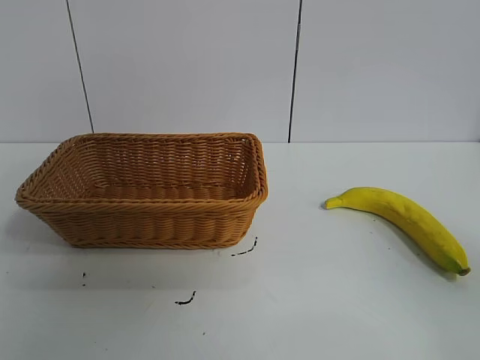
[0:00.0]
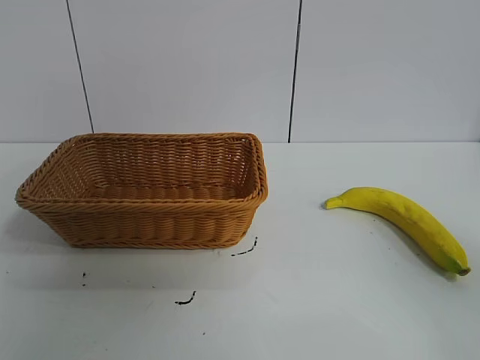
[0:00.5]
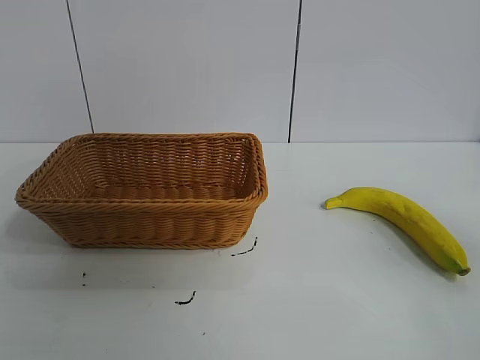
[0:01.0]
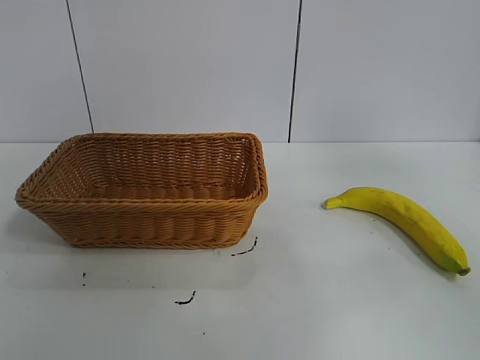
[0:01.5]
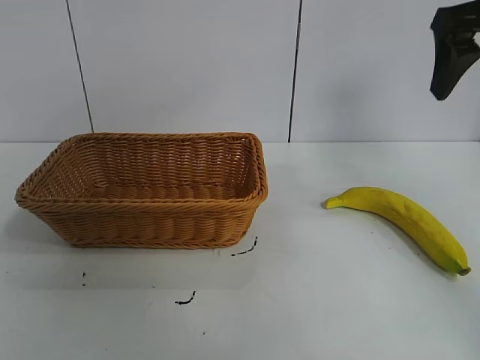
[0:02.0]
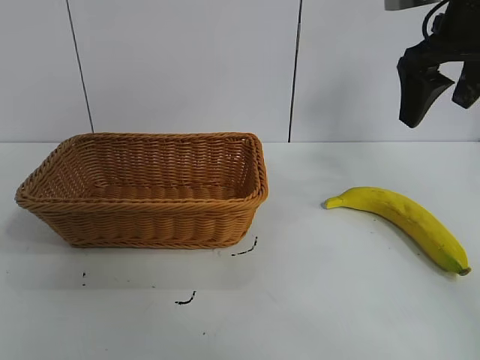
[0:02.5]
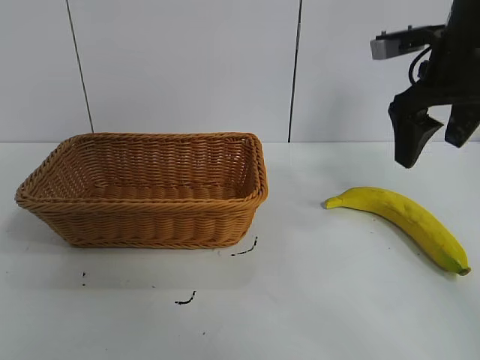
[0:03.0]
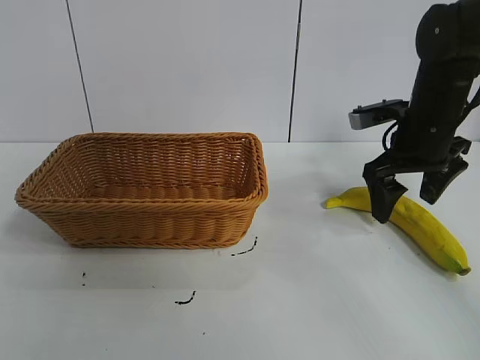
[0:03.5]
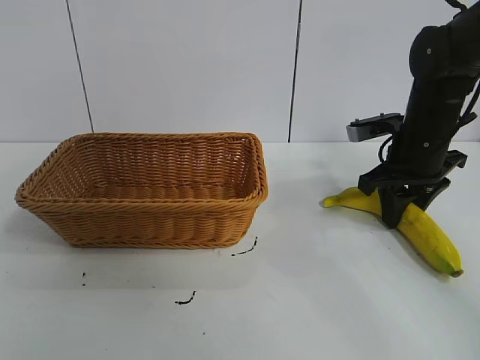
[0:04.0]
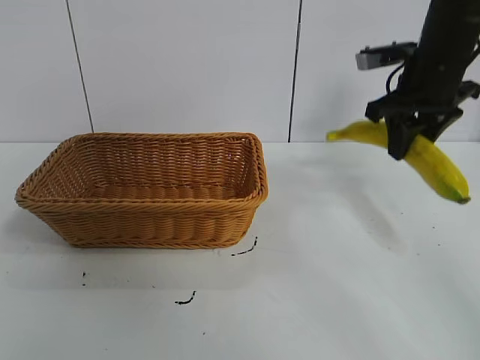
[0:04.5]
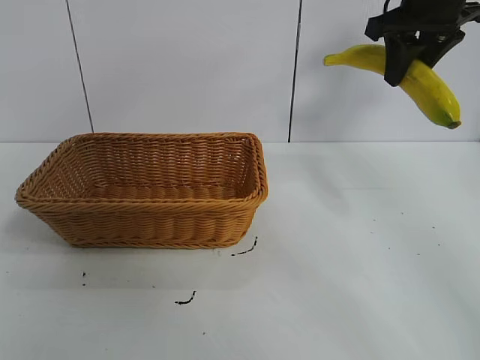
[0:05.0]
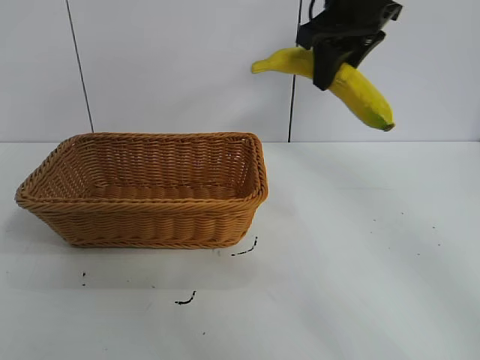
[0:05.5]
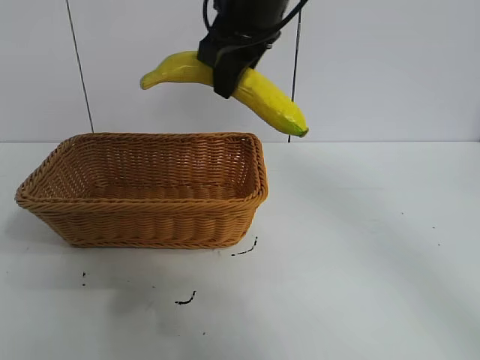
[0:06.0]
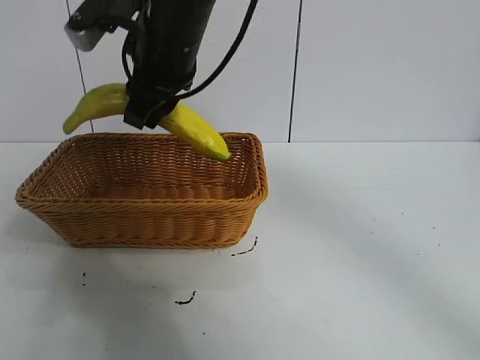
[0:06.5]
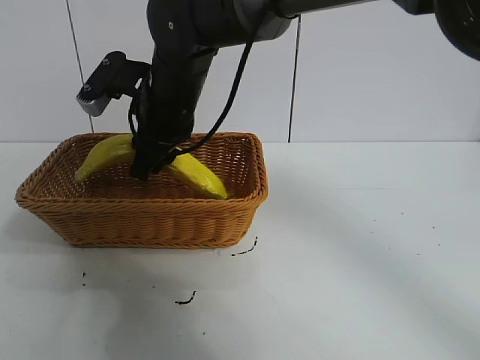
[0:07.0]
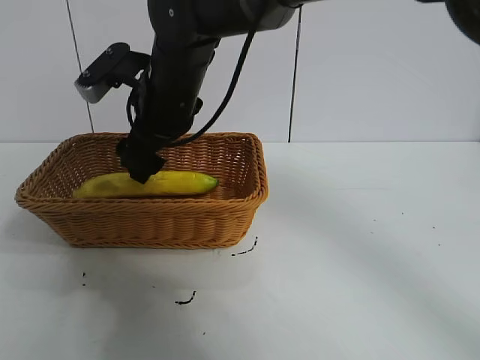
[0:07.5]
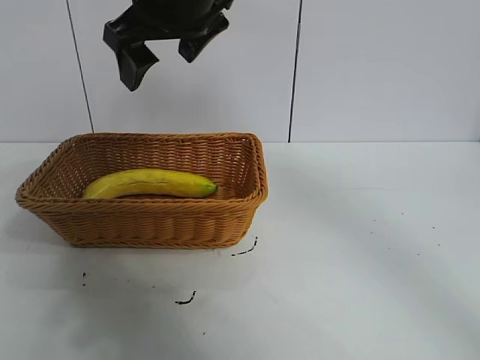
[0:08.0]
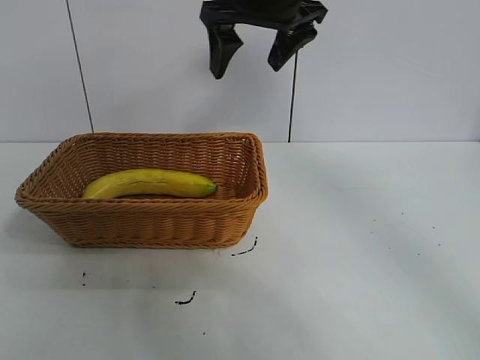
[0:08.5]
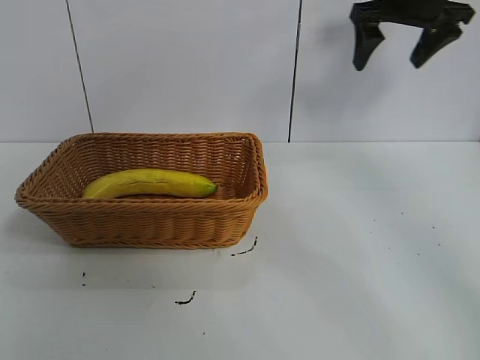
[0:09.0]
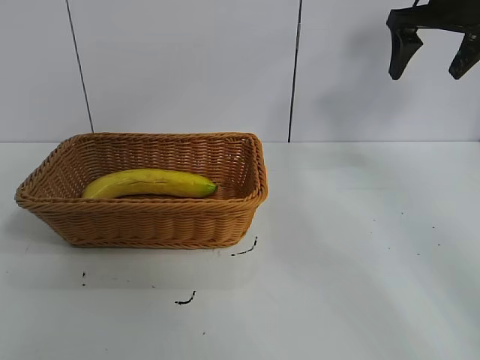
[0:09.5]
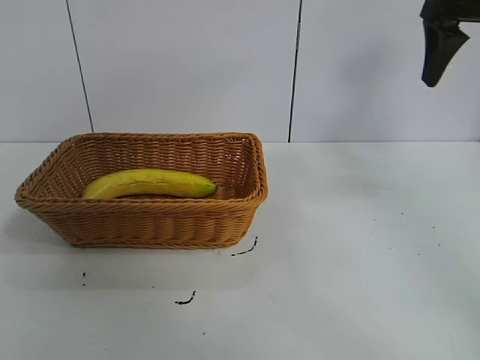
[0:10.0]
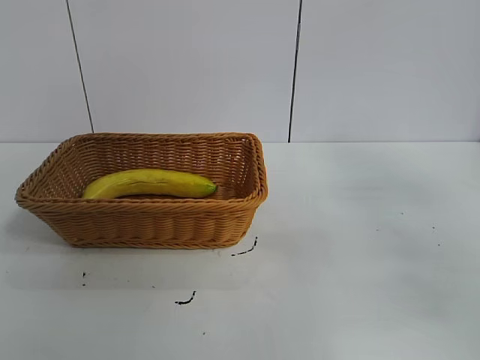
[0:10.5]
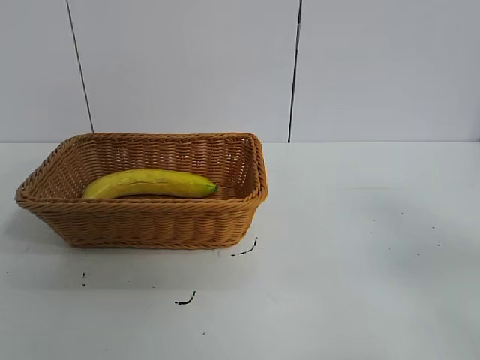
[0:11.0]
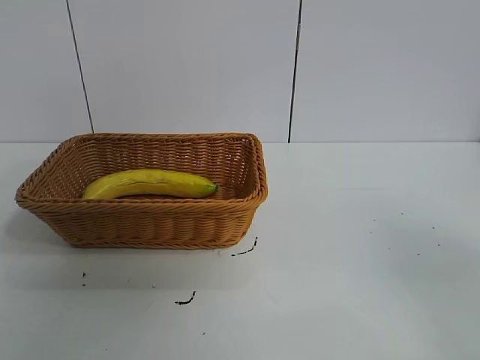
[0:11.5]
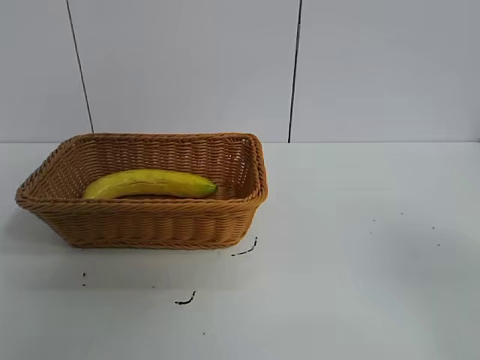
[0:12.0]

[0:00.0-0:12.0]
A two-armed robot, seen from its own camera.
Task of the whole recording: pick up the banana and put it into the basket.
Step, 0:01.0 to 0:04.0: Grasp the banana with right gripper.
Step, 0:04.5 to 0:07.0: Place the banana in the basket with right gripper.
